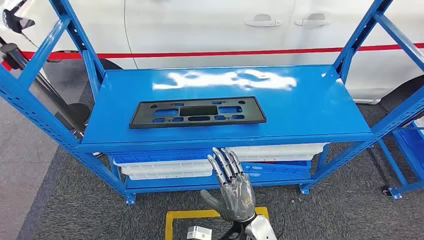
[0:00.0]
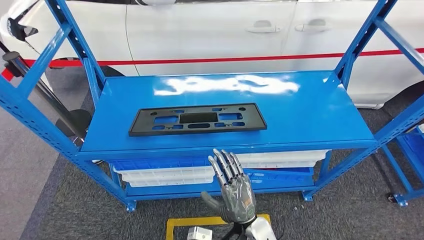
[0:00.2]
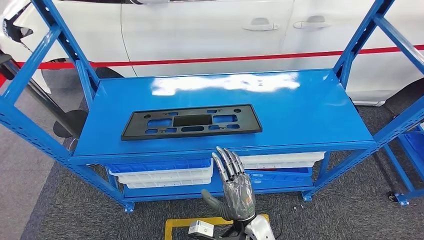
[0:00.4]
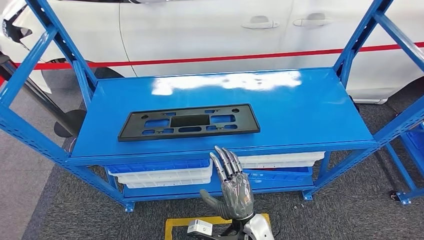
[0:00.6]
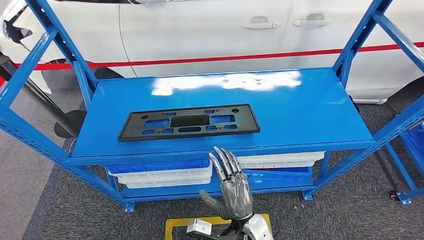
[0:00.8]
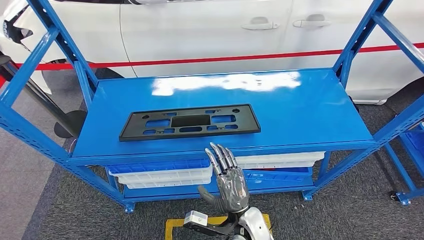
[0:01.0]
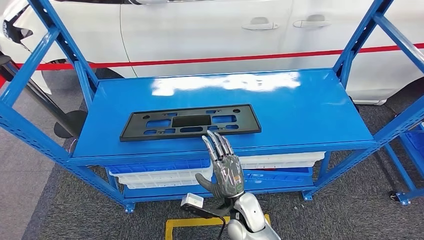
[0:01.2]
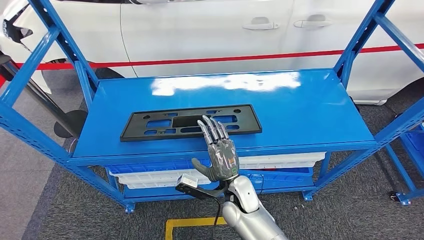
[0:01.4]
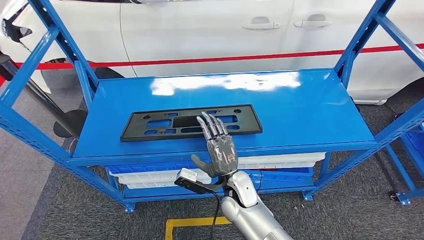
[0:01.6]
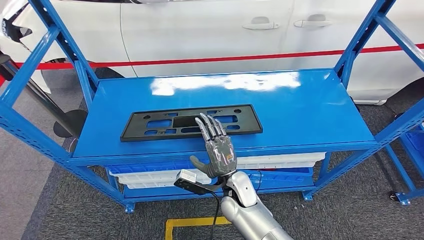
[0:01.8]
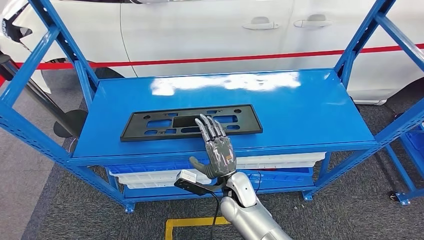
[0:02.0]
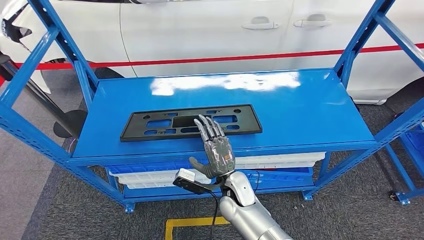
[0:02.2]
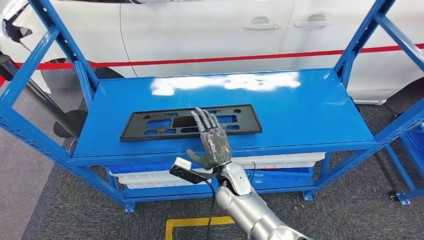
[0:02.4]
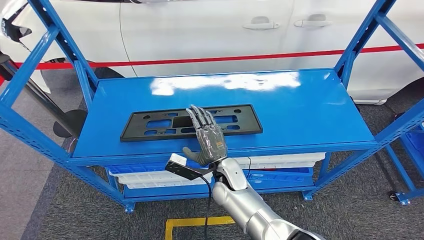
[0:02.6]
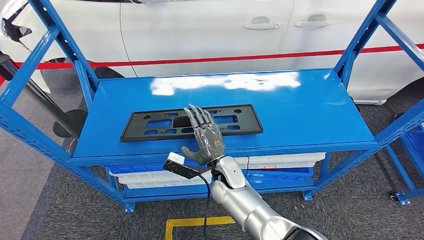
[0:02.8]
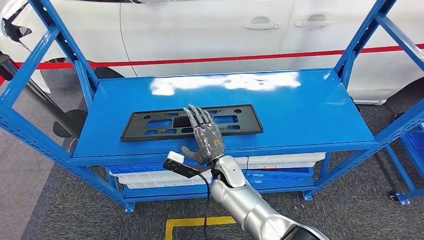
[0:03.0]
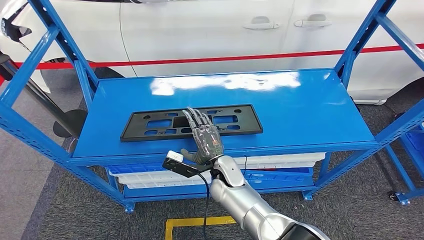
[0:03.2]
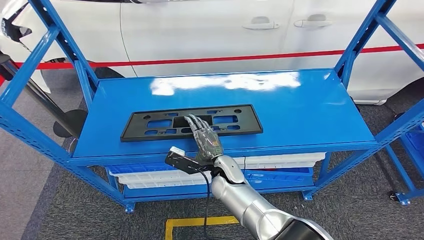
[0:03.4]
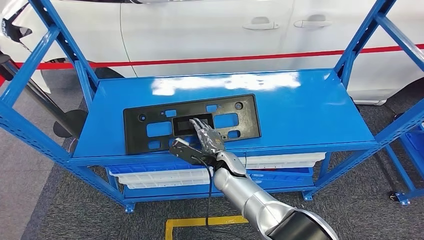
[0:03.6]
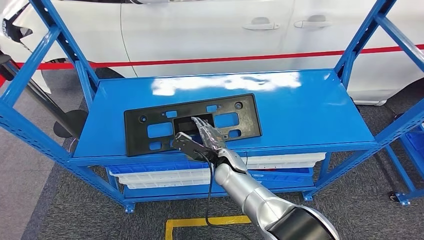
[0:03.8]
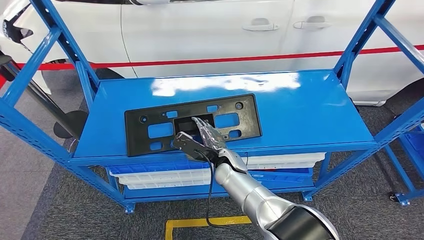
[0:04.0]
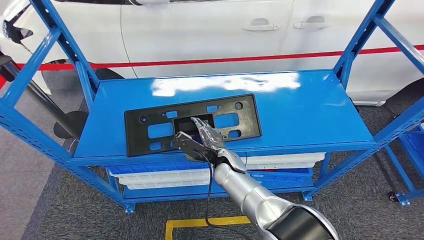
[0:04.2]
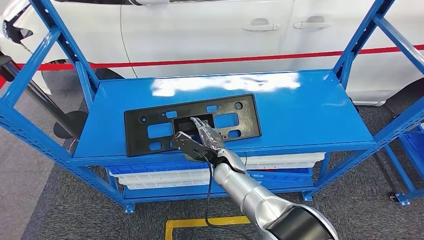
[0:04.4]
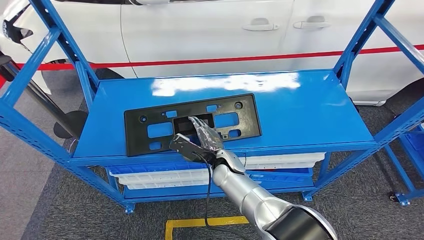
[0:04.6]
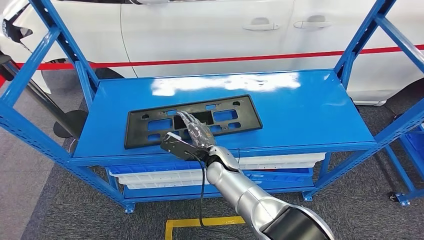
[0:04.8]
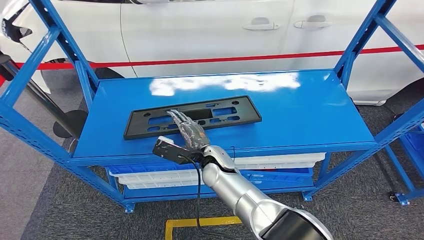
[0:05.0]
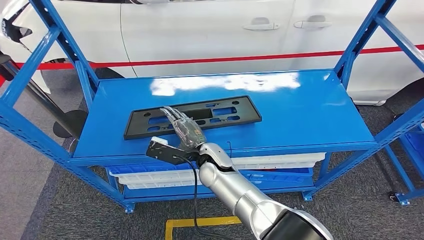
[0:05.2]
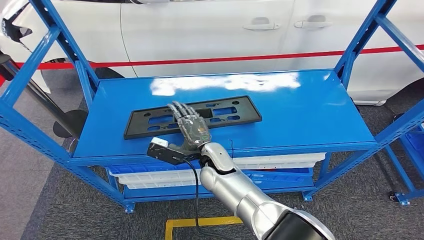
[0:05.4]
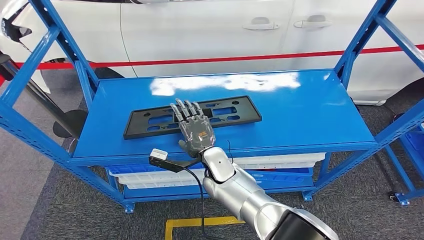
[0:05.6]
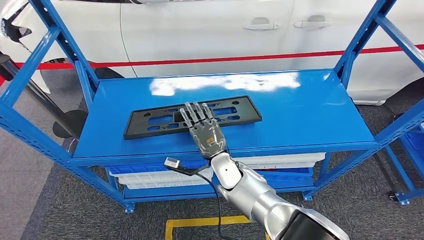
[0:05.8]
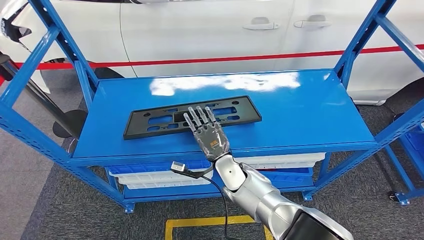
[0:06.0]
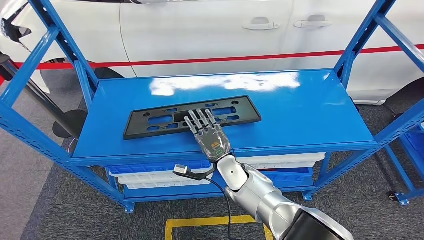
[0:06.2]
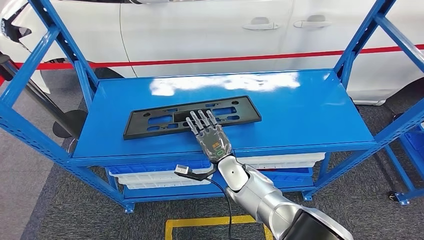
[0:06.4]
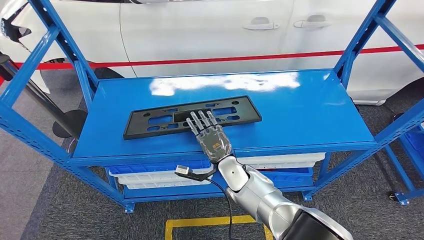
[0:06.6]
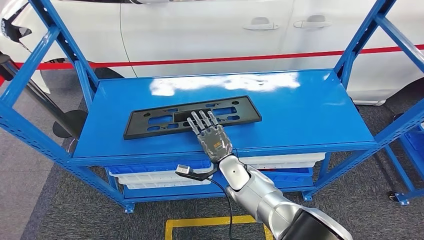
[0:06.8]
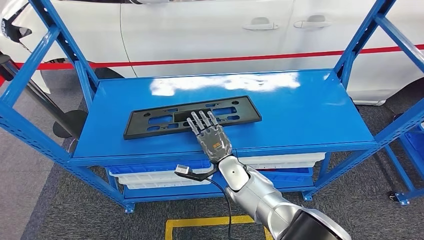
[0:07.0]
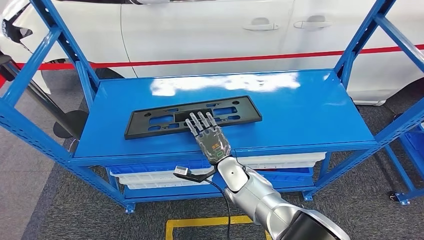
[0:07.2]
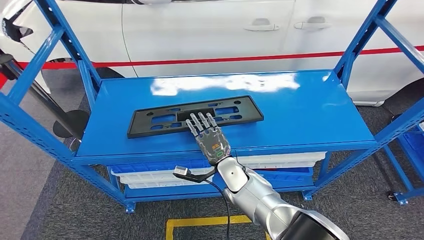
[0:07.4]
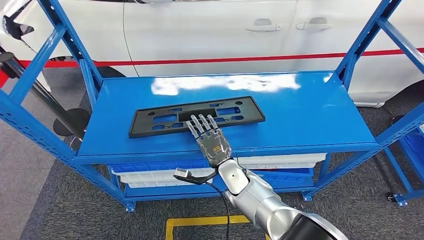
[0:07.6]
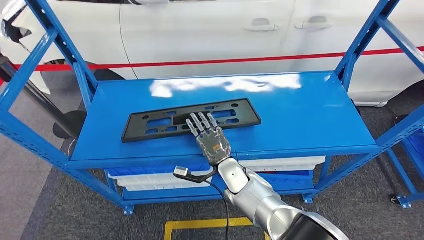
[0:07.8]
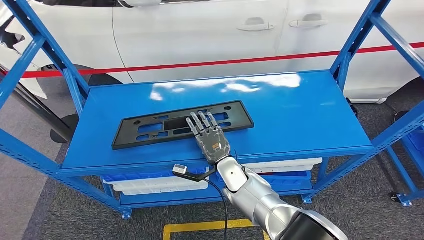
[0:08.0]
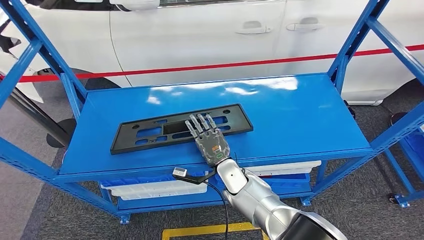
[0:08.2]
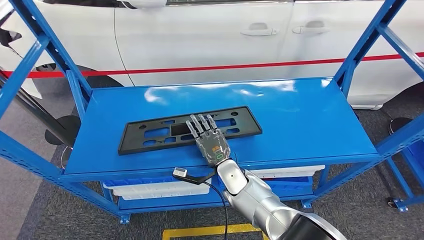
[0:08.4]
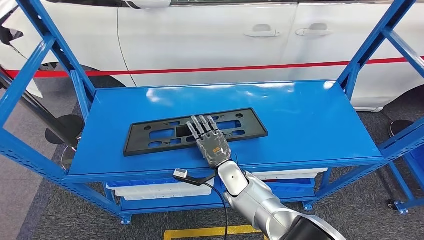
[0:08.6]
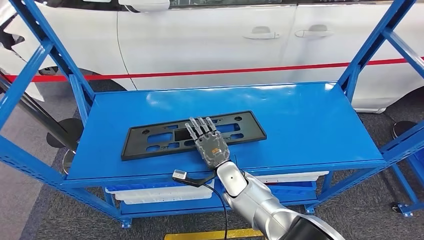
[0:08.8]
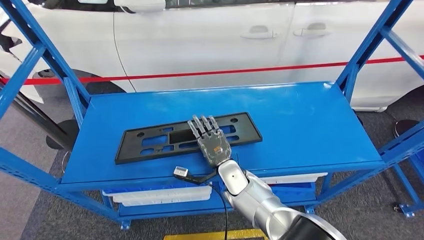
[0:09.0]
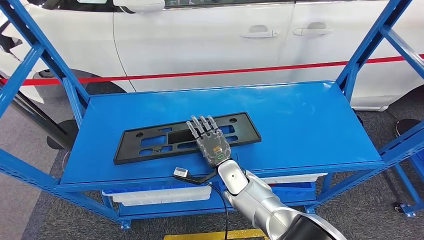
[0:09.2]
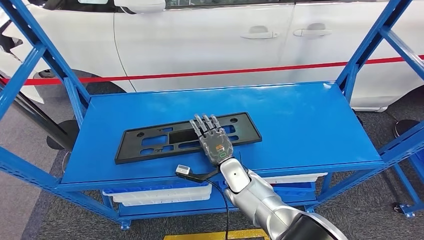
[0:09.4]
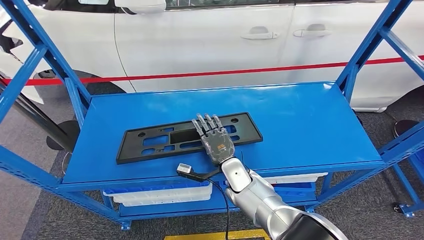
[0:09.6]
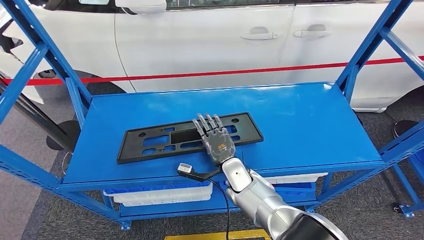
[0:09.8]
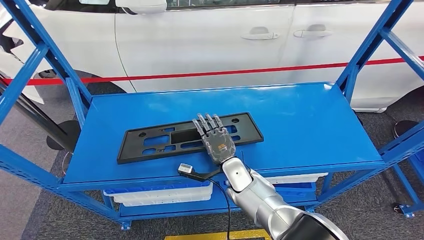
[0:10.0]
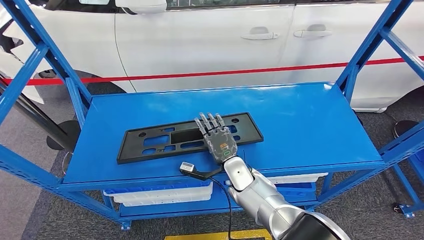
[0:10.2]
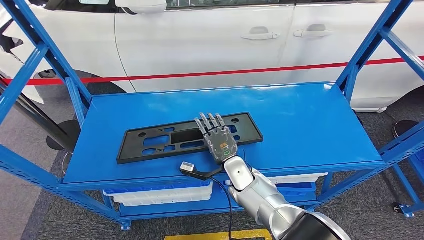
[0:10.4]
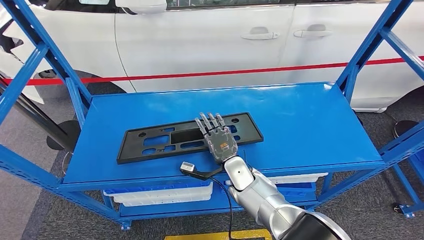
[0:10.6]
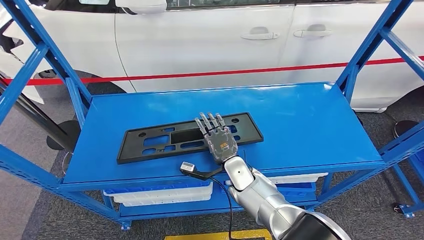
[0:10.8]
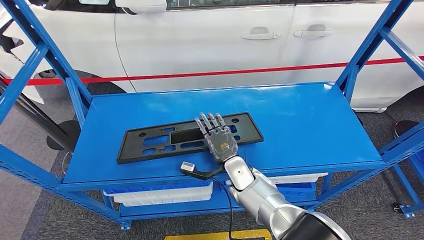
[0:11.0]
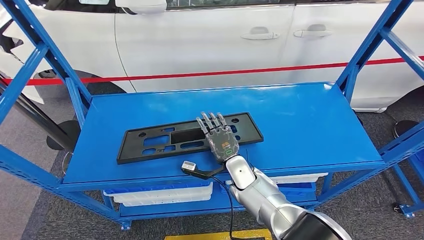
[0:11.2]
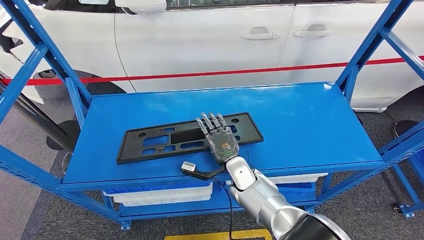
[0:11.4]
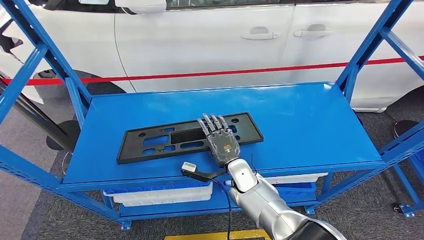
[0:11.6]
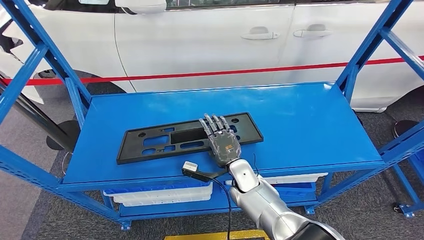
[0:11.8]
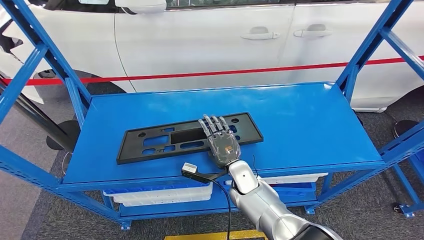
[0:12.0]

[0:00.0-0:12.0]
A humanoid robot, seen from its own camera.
0:01.6 to 0:03.0: The right hand changes place by some 5 cm.
0:06.0 to 0:07.6: The hands make only small movements.
0:09.0 to 0:12.0: The hands move only a little.

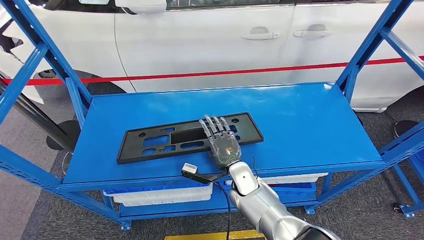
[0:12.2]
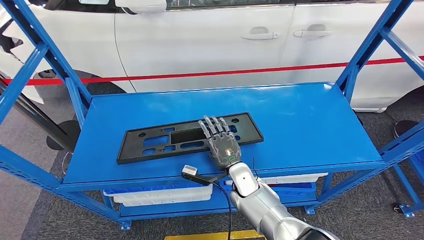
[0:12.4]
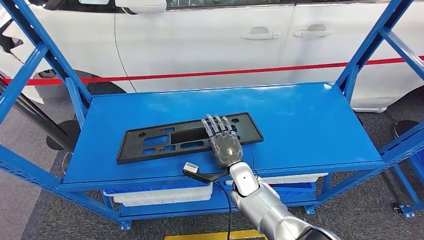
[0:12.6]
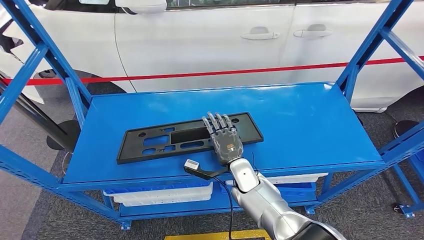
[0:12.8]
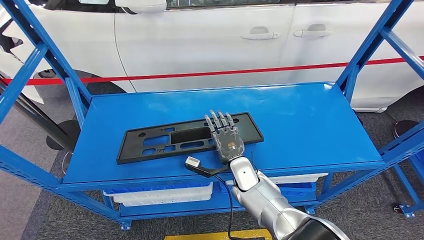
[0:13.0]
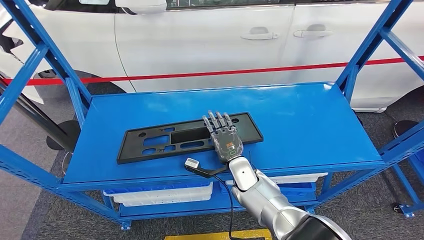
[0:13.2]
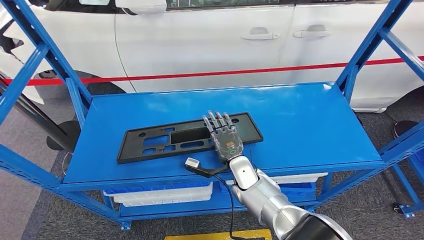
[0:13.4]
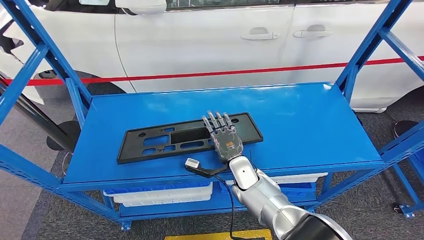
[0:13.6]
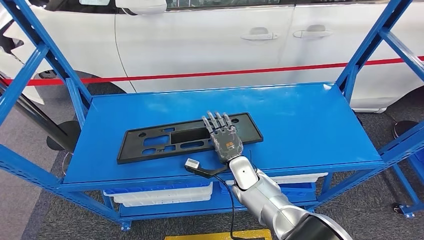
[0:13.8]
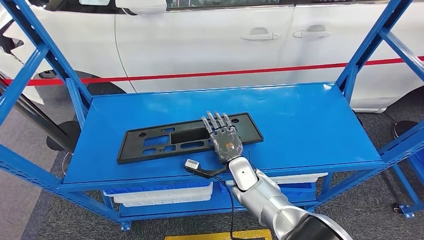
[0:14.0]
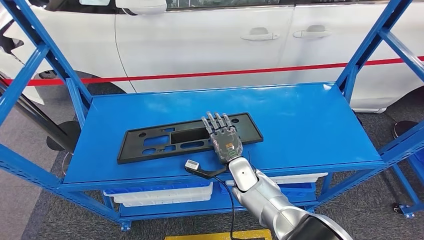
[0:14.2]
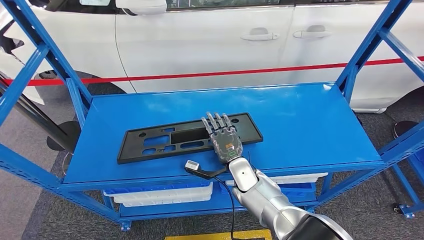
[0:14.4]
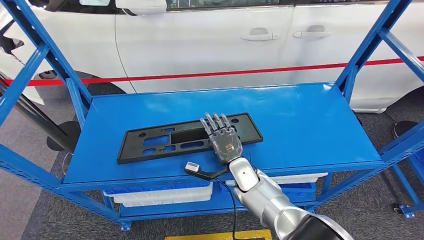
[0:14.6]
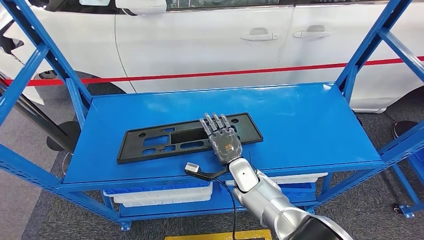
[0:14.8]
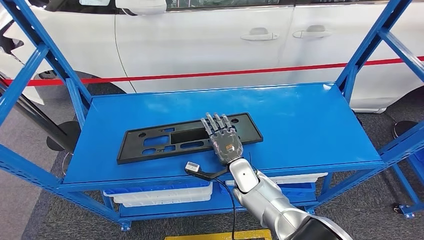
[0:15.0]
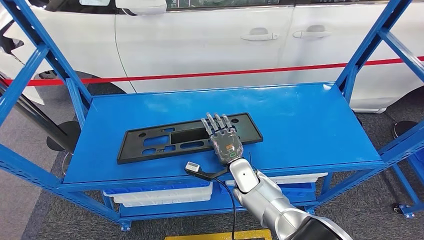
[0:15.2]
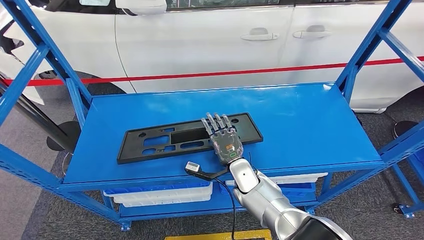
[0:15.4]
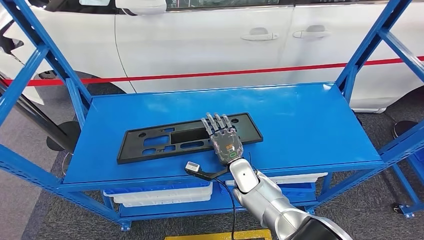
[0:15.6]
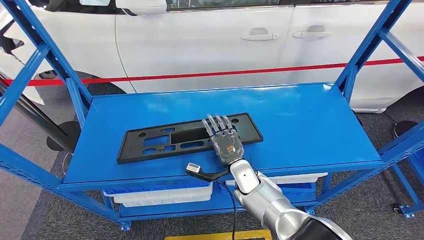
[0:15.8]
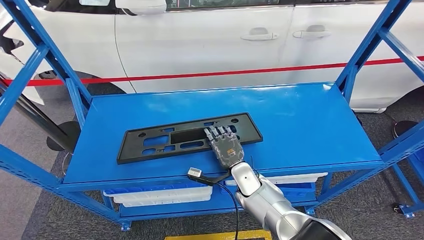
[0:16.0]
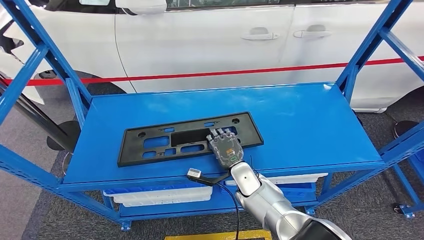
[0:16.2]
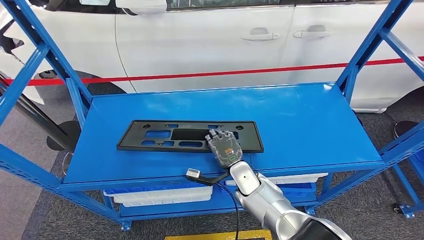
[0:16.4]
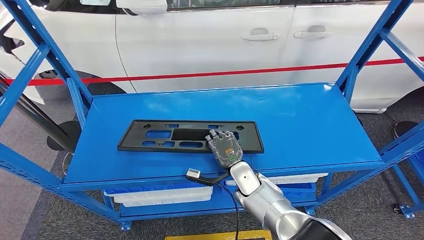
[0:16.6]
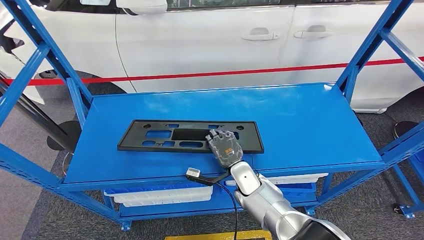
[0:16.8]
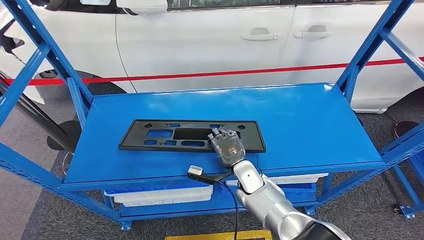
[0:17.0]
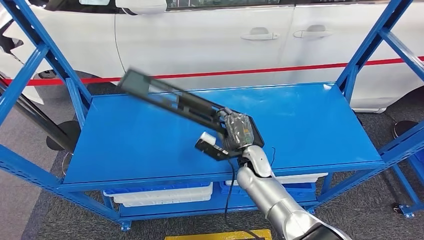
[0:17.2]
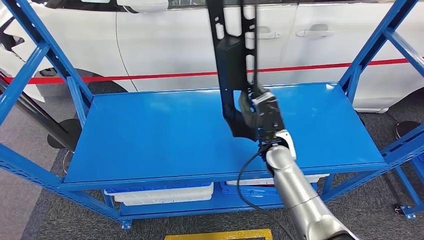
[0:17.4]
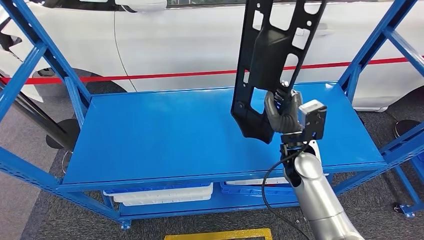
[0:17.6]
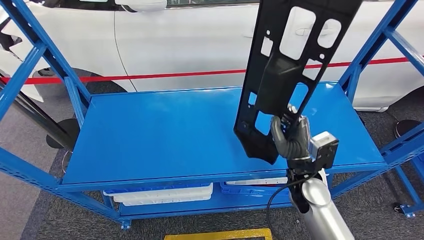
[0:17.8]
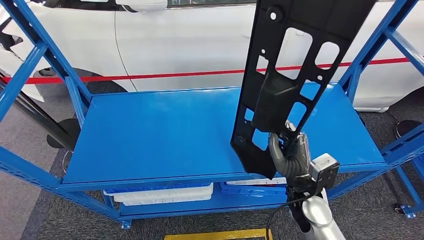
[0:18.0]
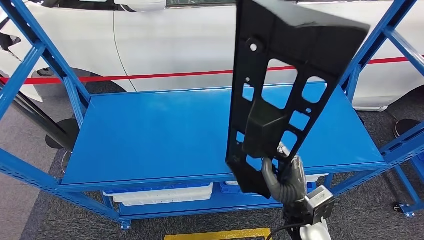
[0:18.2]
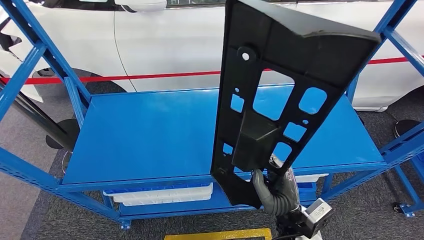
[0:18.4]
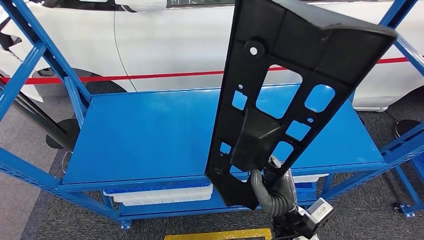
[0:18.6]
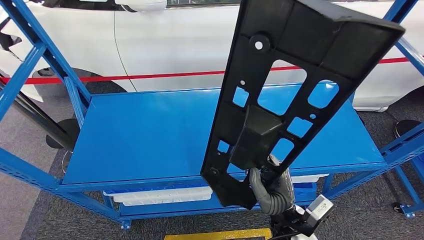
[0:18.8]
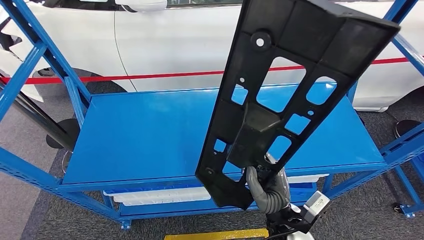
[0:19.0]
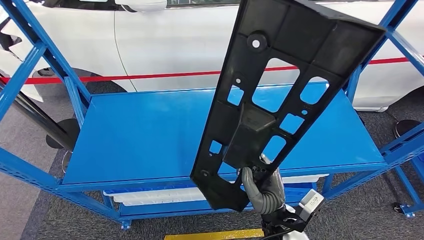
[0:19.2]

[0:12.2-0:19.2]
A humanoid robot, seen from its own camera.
0:12.2 to 0:15.0: The hands stay close to where they were, moving slightly.
0:15.0 to 0:16.4: The two hands keep their place.
